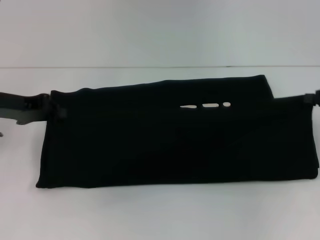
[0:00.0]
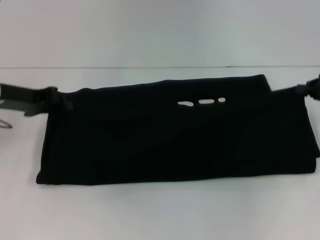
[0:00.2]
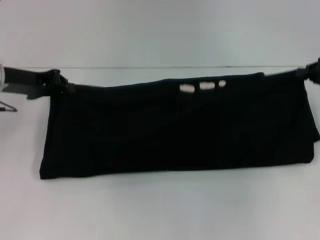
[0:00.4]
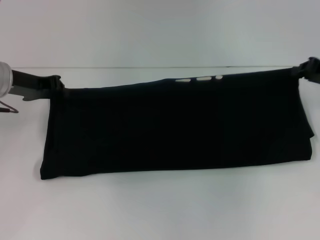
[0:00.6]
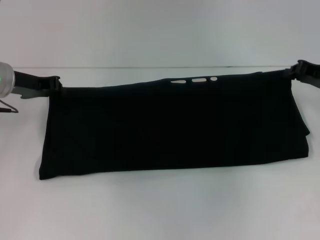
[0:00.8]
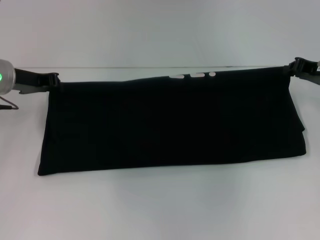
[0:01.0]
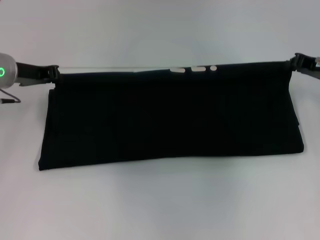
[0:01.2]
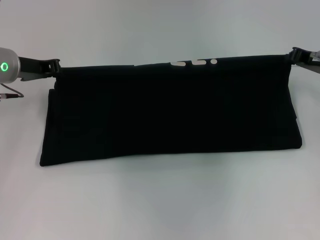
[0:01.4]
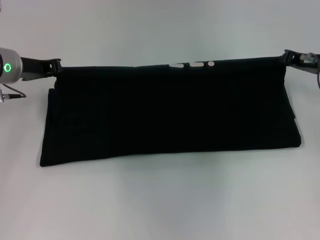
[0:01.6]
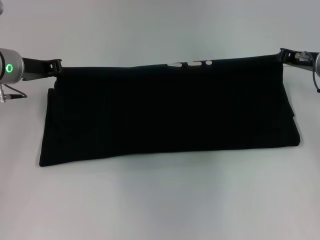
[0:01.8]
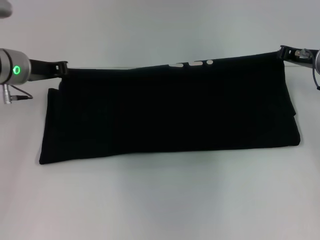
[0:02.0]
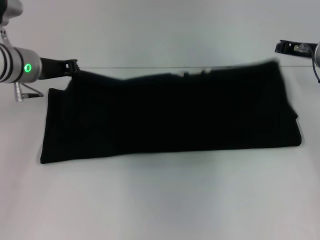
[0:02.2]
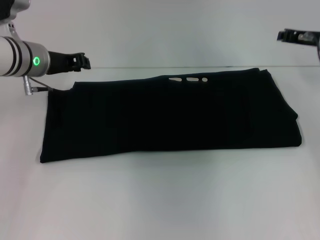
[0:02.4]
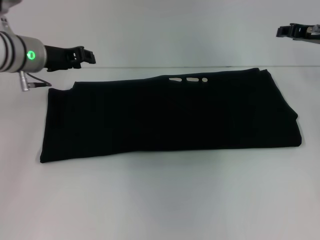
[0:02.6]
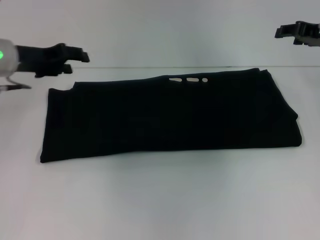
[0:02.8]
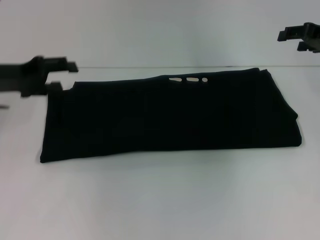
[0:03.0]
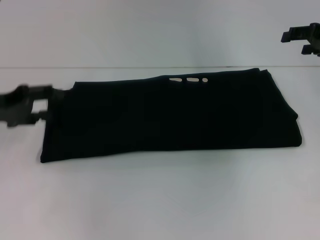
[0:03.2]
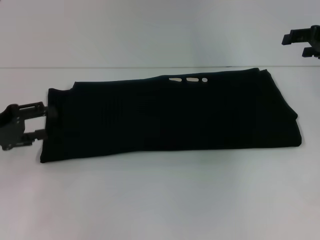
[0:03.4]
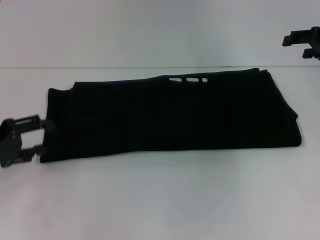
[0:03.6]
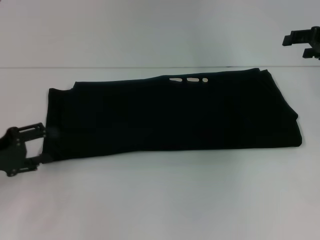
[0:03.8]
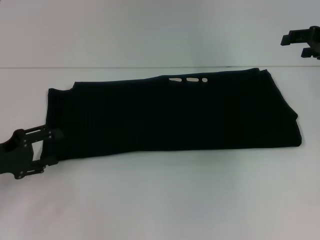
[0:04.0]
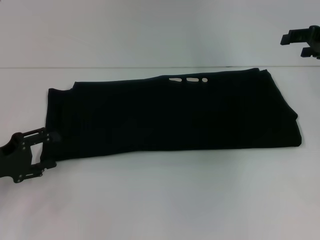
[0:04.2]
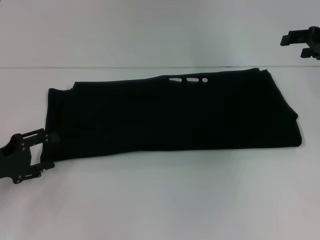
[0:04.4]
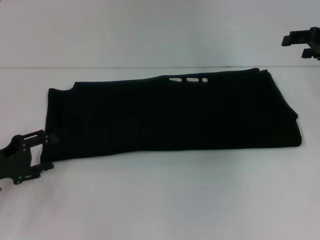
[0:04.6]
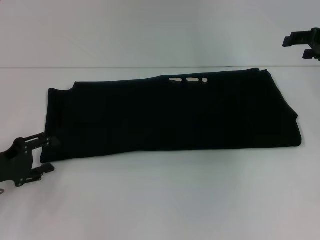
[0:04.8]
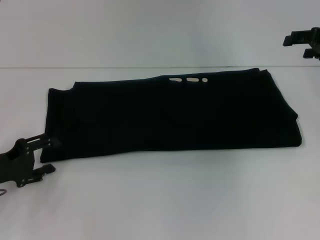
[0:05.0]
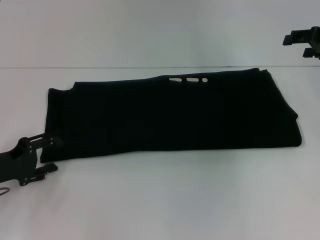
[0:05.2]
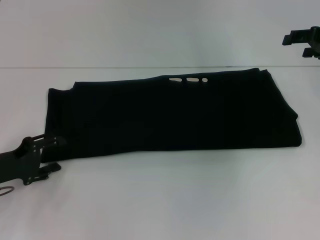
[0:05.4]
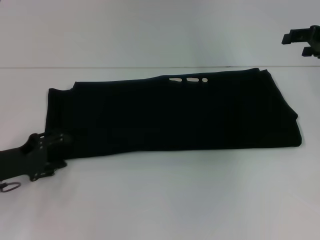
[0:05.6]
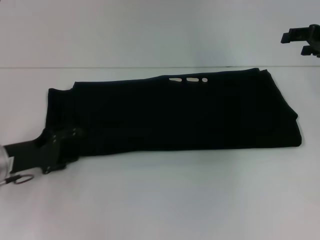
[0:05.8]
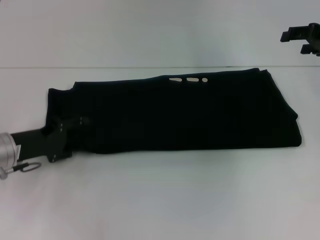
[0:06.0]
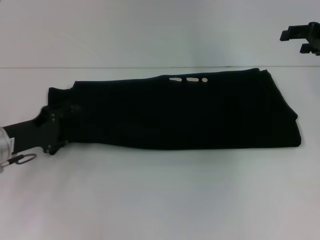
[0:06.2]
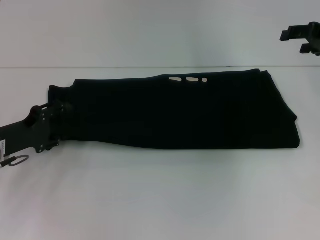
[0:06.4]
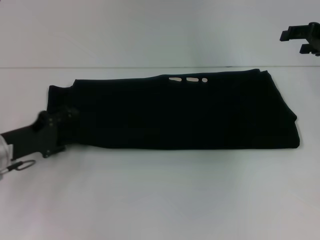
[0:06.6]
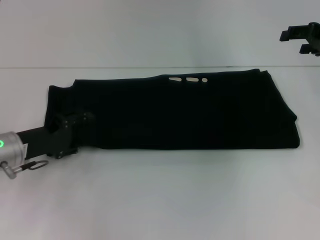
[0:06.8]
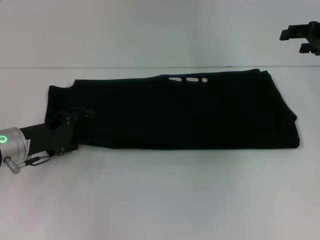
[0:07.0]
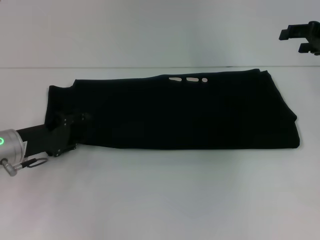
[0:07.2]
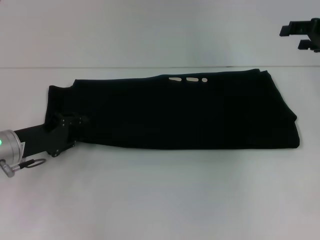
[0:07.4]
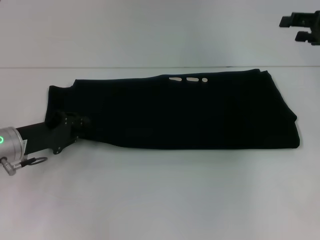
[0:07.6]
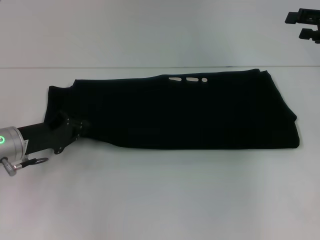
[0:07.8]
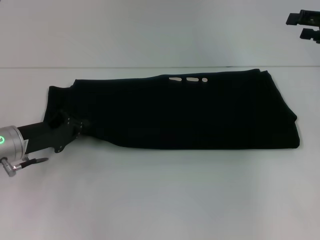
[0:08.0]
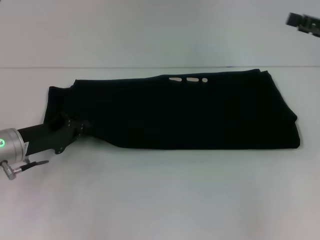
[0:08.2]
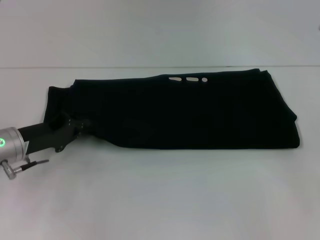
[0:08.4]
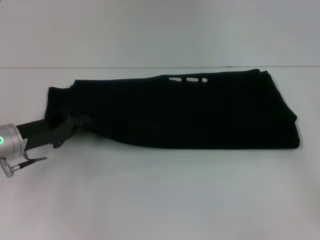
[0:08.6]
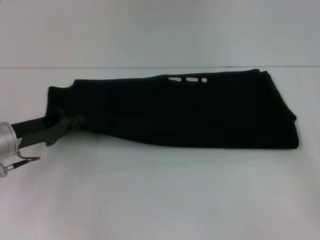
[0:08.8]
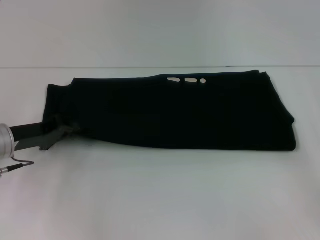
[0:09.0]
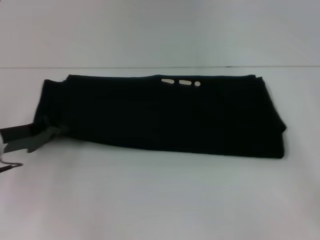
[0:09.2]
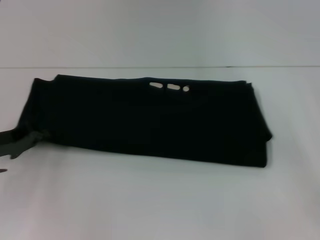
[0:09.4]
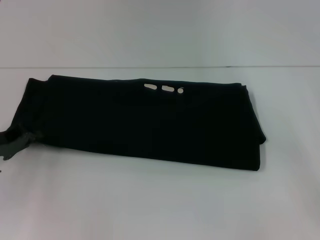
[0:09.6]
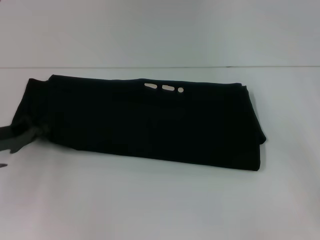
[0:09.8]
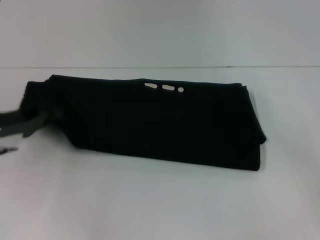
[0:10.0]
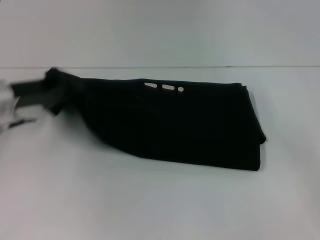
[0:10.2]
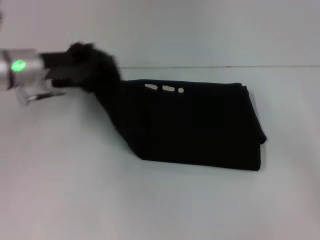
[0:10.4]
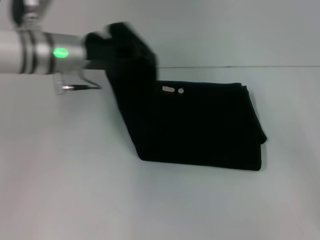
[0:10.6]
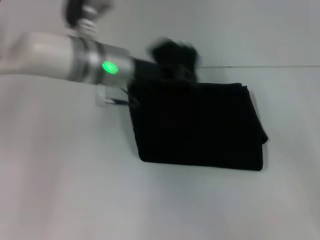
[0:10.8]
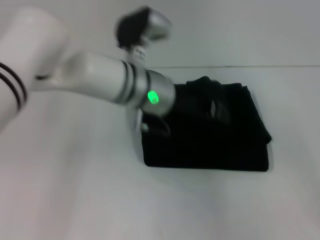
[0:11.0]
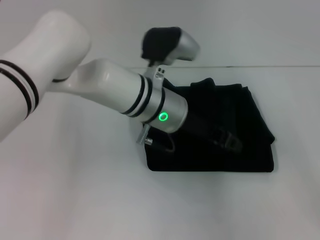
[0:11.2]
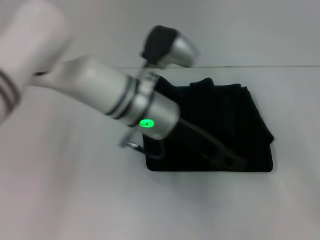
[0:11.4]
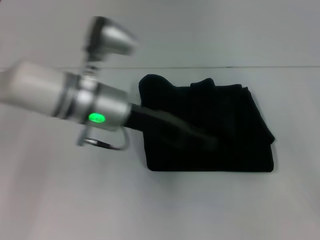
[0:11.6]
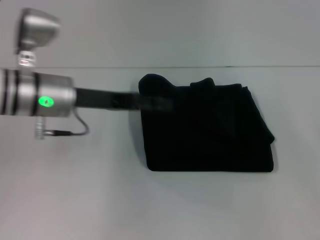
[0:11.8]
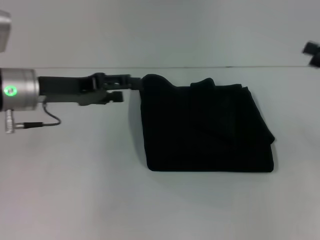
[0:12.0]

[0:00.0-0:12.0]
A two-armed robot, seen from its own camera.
Step, 0:00.0 to 0:02.4: Fold the clothes with your right hand.
Step, 0:00.0 to 0:11.4: Fold the clothes with your left hand.
0:00.0 to 0:01.6: The right gripper travels to the left and forward by about 10 cm. Meanwhile the left gripper goes some 5 cm forward.
0:01.6 to 0:03.0: The right gripper heads upward, covering some 5 cm, and opens its fingers. Meanwhile the left gripper goes roughly 5 cm backward, and opens its fingers.
0:03.0 to 0:04.4: The left gripper is displaced backward and downward by some 15 cm.
0:04.4 to 0:06.0: The left gripper moves forward, about 5 cm.
0:06.0 to 0:07.6: The grippers move only a little.
0:07.6 to 0:09.0: The left gripper closes its fingers. The right gripper is displaced backward and downward by about 15 cm.
0:09.0 to 0:10.4: The left gripper heads upward and forward, covering some 10 cm.
0:10.4 to 0:12.0: The right gripper heads forward, covering roughly 5 cm. The left gripper goes to the right and returns, some 20 cm each way, and opens up.

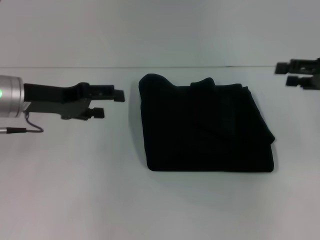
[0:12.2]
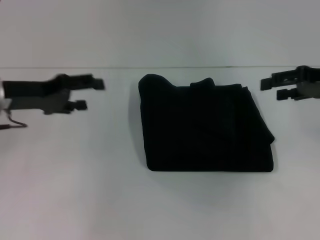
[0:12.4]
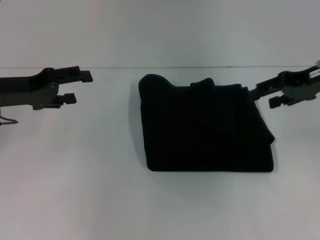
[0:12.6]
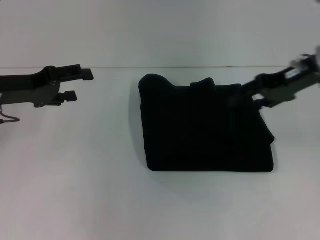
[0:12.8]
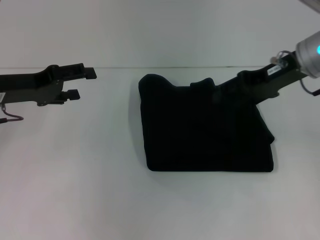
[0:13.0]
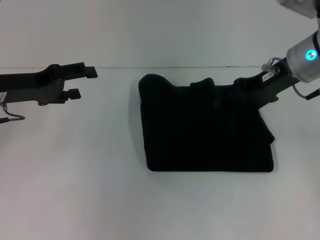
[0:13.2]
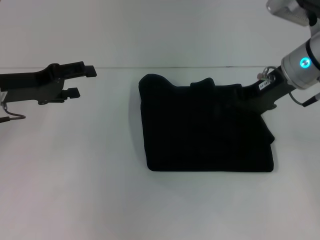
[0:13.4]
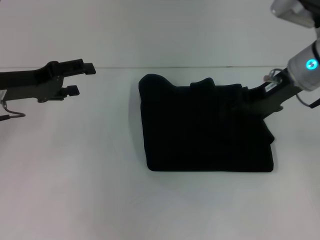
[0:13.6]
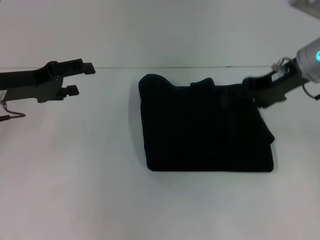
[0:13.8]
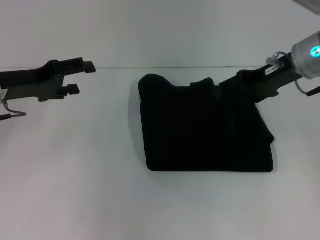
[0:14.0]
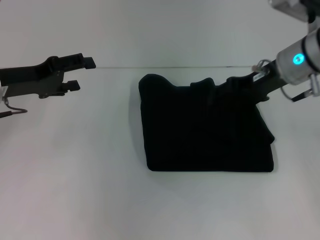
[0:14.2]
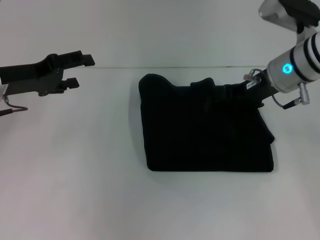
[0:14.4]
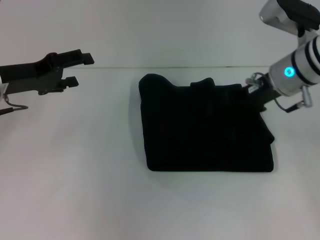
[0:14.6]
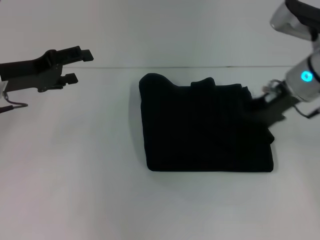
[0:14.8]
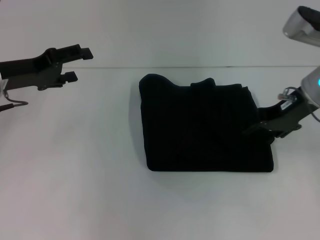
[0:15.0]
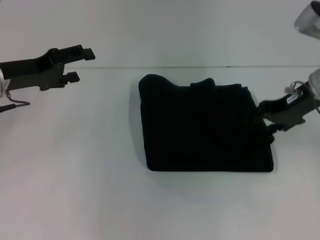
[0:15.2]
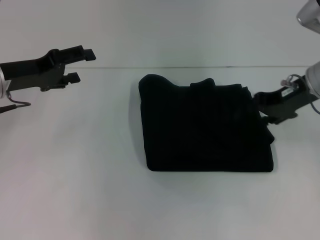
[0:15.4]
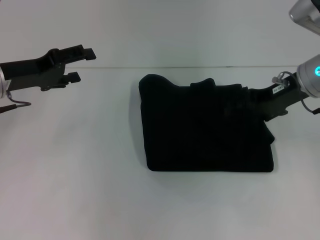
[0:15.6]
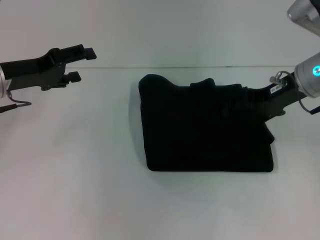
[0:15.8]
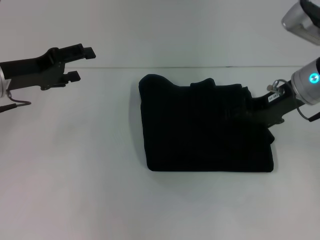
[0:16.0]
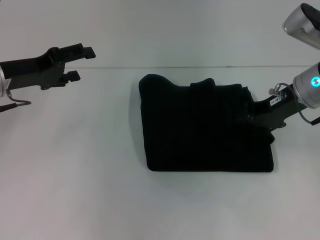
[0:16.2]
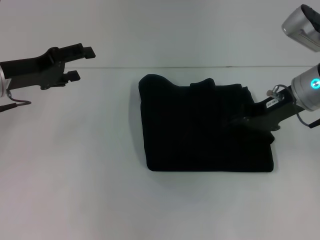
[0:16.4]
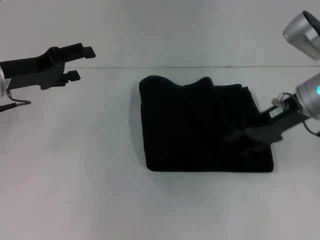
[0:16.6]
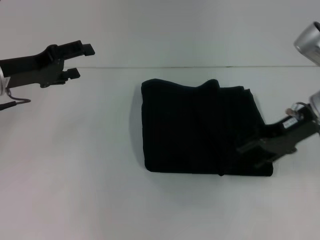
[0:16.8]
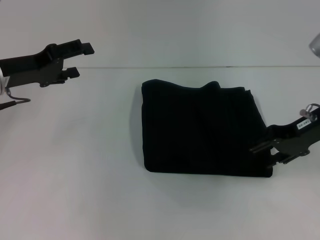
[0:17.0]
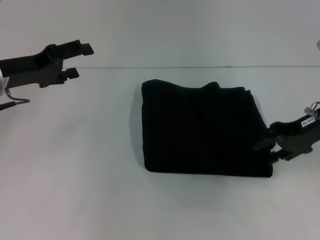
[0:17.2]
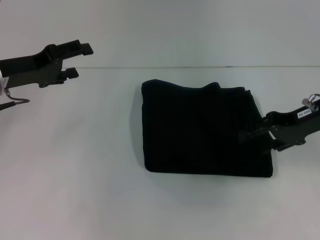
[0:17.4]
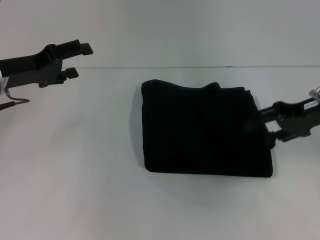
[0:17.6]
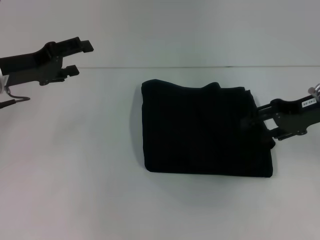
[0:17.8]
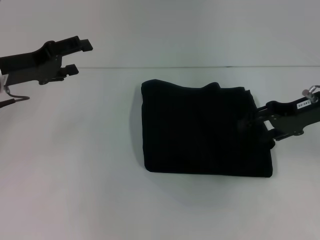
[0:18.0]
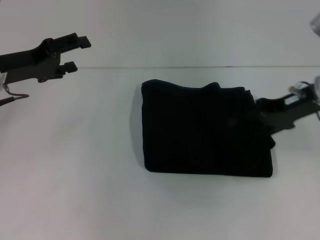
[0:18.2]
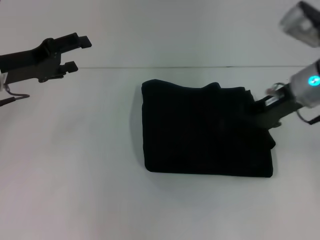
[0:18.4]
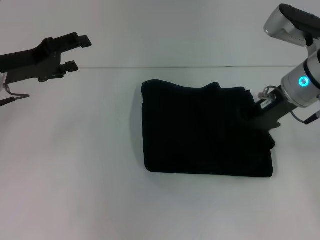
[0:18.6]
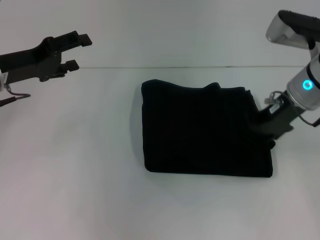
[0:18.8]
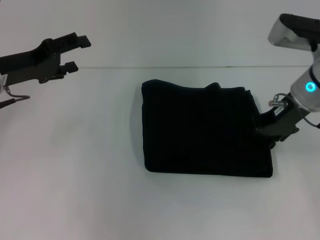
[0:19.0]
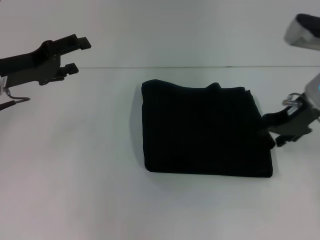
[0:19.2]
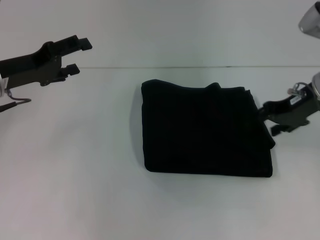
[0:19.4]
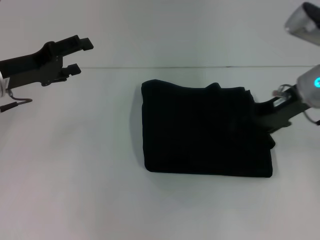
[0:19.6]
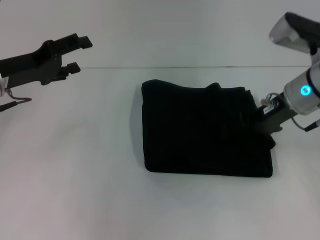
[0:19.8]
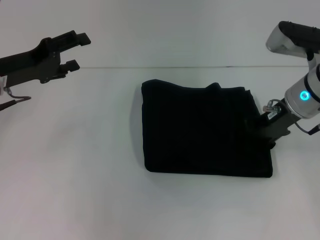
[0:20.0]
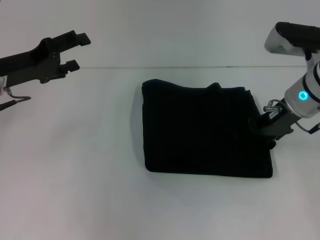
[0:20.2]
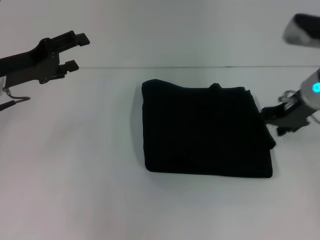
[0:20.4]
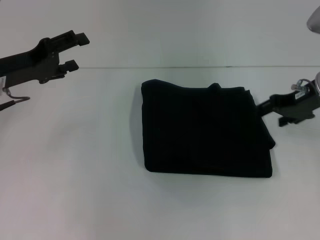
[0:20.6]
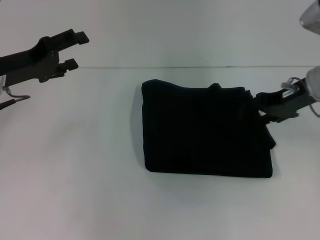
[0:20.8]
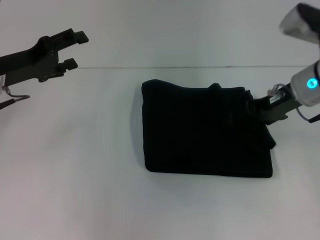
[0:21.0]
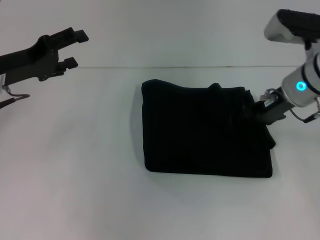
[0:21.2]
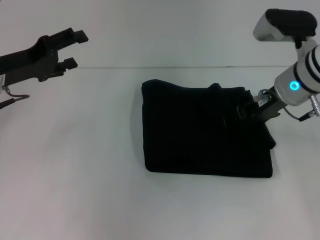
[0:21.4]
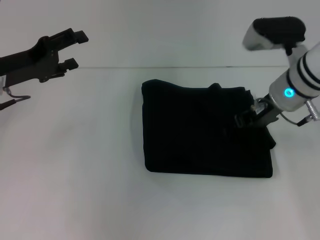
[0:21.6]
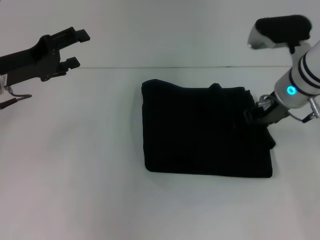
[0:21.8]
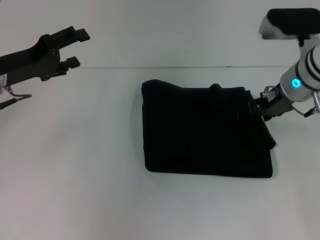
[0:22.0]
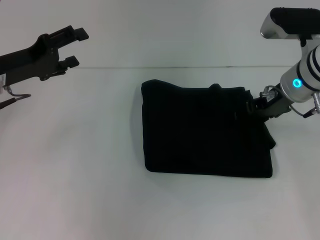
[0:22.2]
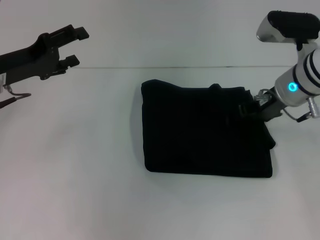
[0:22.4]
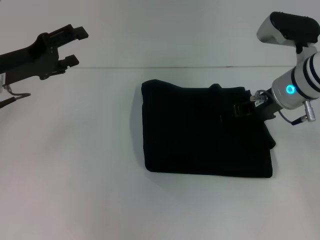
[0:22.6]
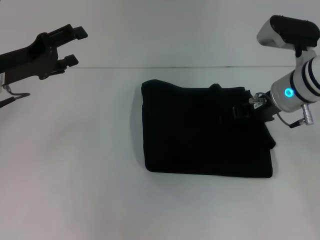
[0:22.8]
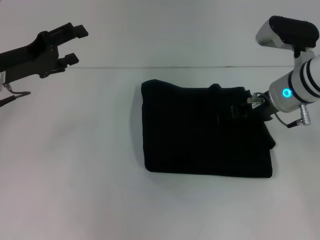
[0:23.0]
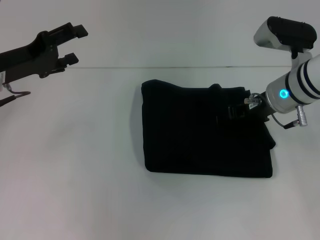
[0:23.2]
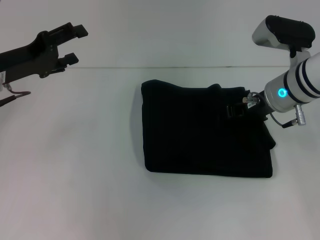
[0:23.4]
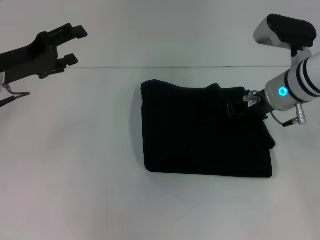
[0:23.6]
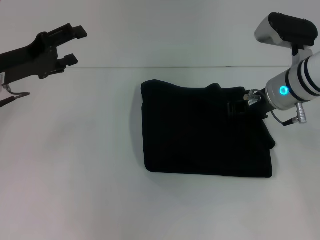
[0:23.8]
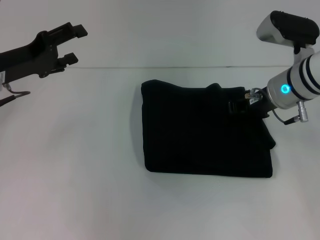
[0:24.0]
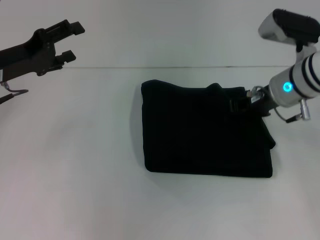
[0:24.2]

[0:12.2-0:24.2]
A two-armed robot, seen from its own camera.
0:12.2 to 0:13.8: The right gripper travels to the left and forward by roughly 15 cm.
0:13.8 to 0:16.6: There are only small adjustments of the grippers.
0:16.6 to 0:18.2: There are only small adjustments of the grippers.
0:19.8 to 0:22.6: The grippers make only small movements.
0:22.6 to 0:24.2: The right gripper closes up.
